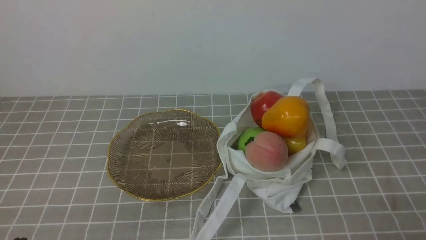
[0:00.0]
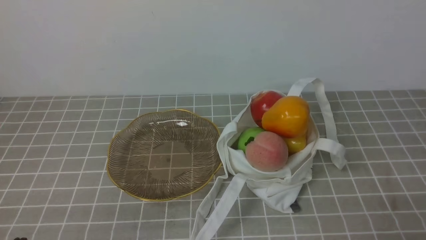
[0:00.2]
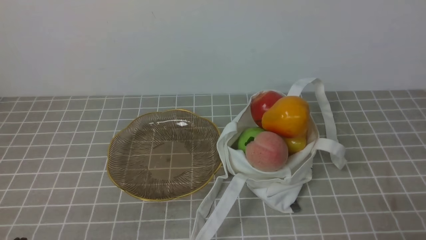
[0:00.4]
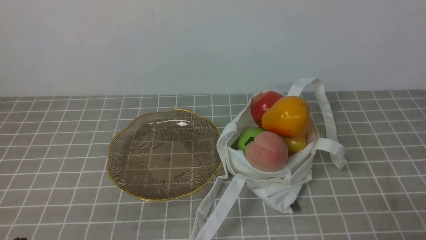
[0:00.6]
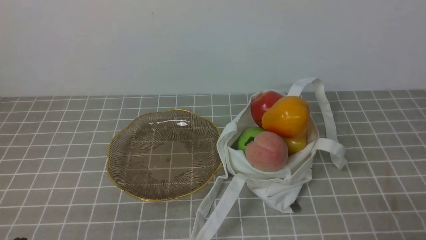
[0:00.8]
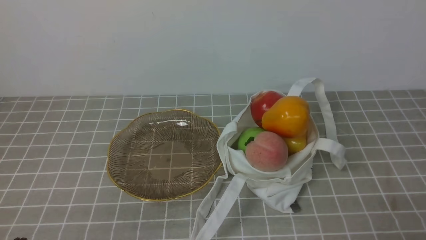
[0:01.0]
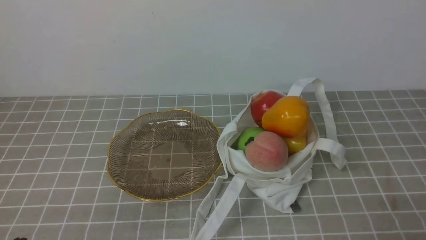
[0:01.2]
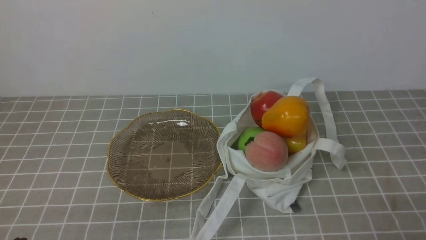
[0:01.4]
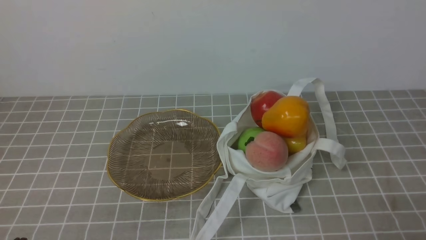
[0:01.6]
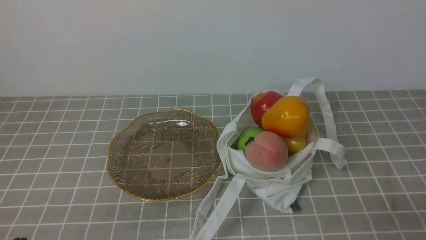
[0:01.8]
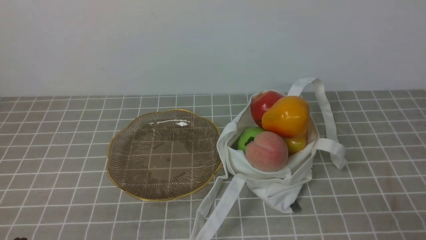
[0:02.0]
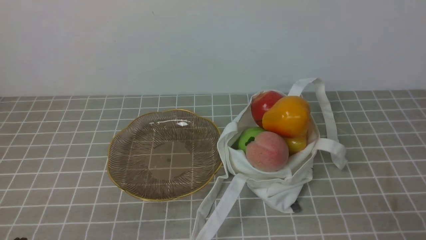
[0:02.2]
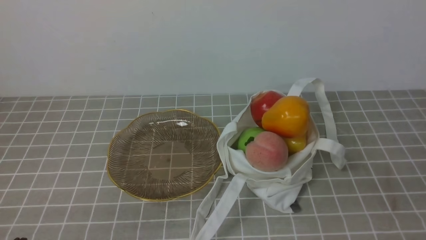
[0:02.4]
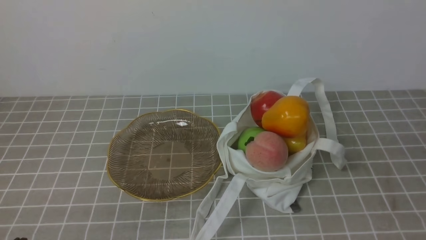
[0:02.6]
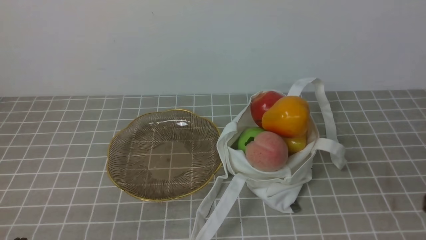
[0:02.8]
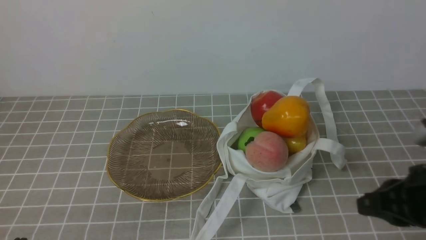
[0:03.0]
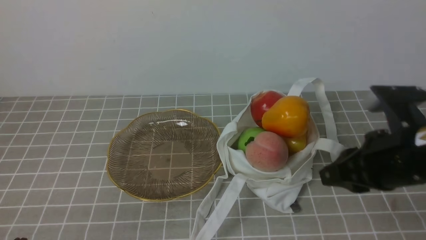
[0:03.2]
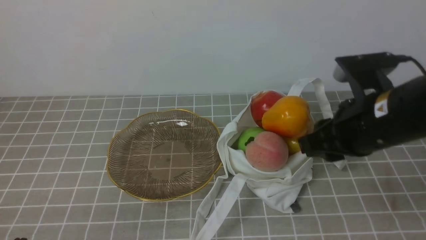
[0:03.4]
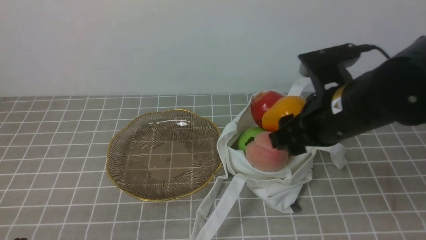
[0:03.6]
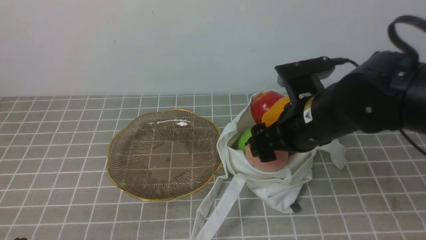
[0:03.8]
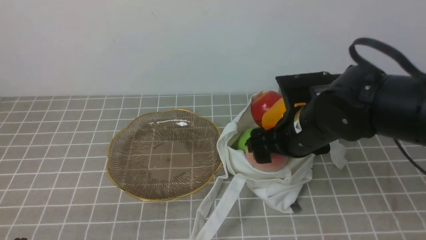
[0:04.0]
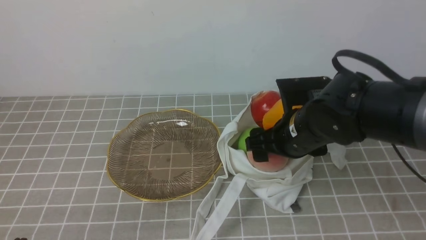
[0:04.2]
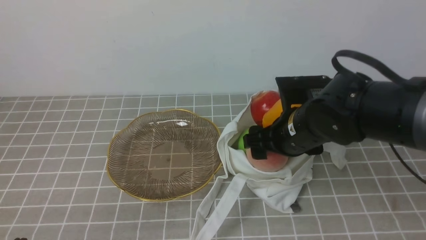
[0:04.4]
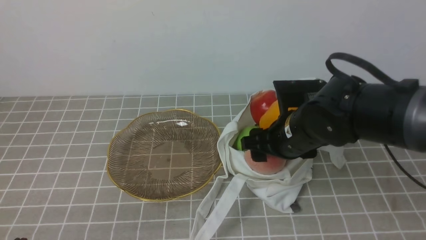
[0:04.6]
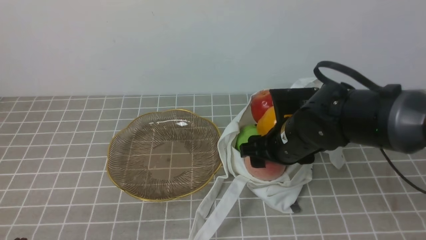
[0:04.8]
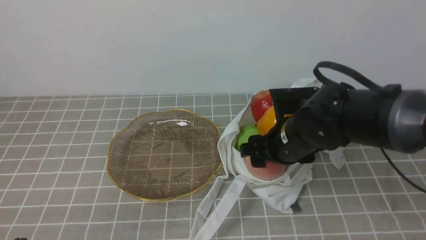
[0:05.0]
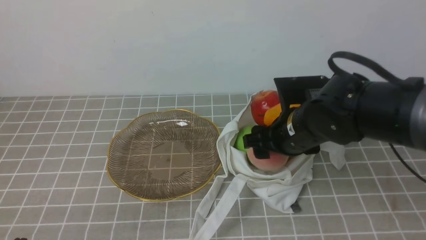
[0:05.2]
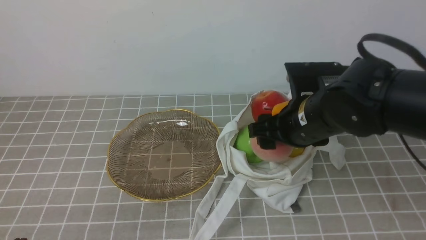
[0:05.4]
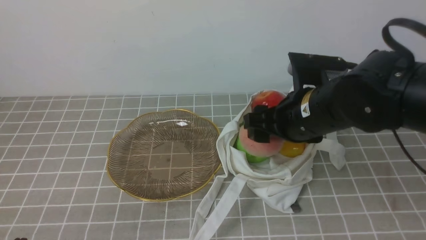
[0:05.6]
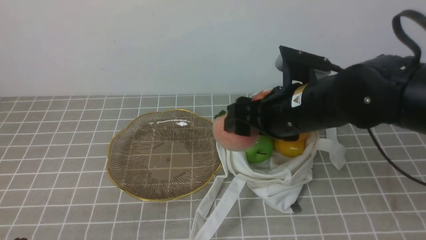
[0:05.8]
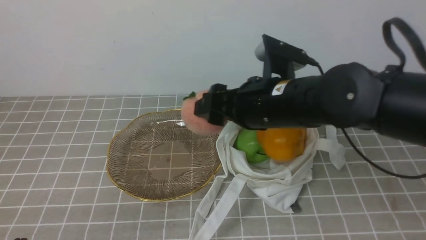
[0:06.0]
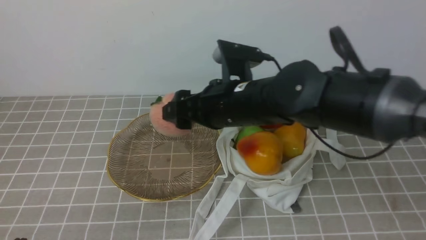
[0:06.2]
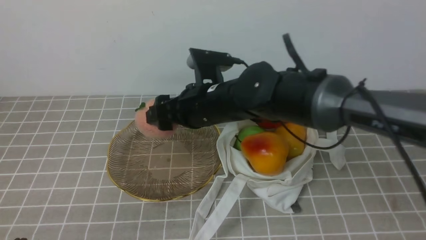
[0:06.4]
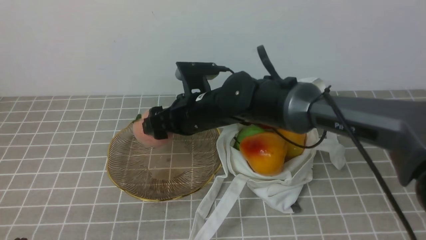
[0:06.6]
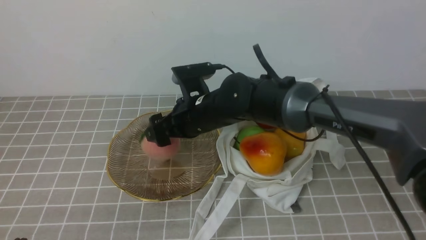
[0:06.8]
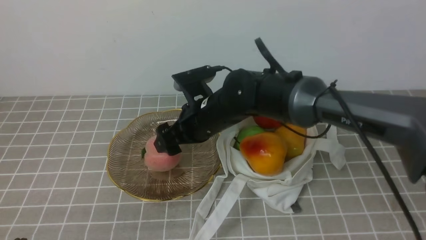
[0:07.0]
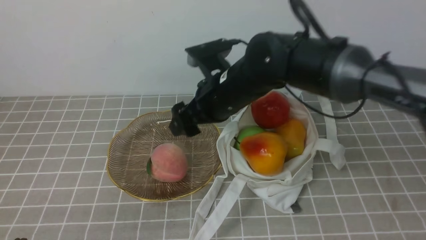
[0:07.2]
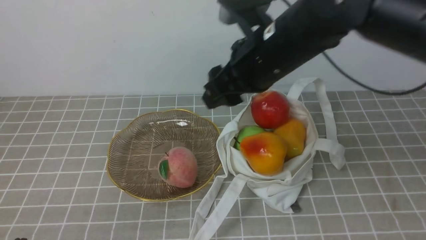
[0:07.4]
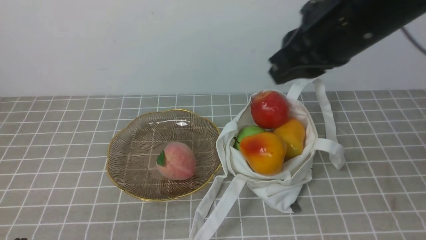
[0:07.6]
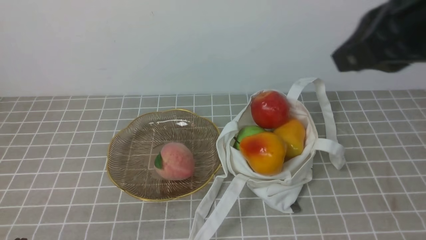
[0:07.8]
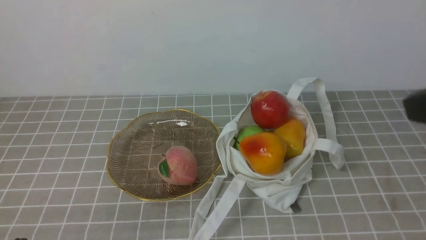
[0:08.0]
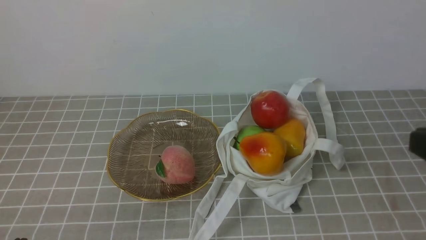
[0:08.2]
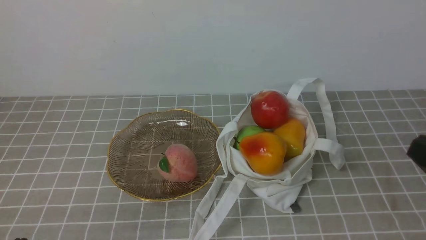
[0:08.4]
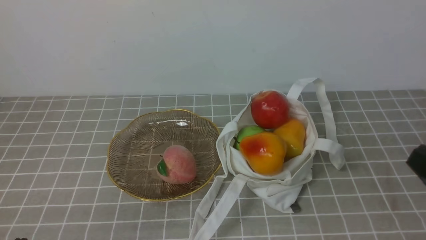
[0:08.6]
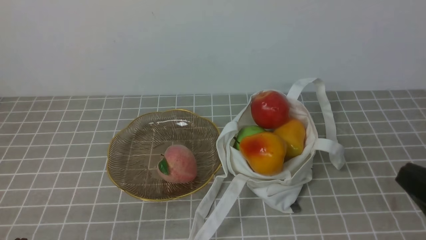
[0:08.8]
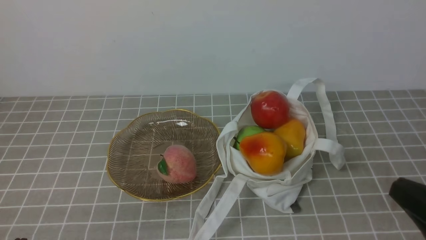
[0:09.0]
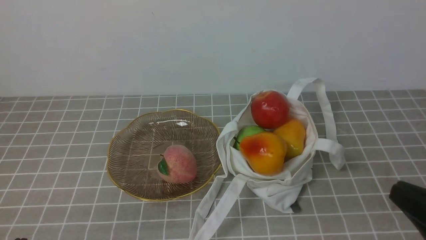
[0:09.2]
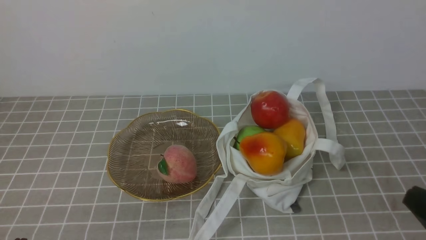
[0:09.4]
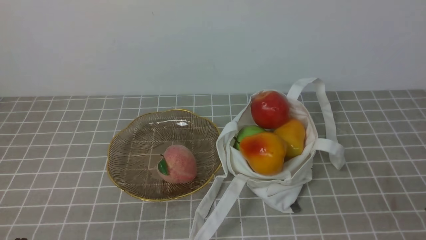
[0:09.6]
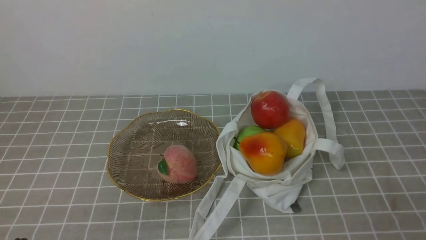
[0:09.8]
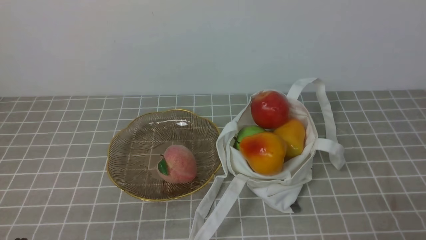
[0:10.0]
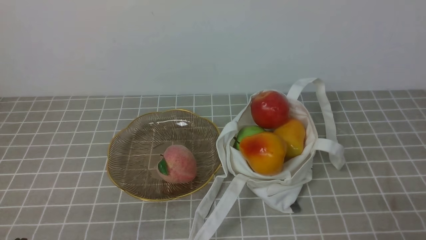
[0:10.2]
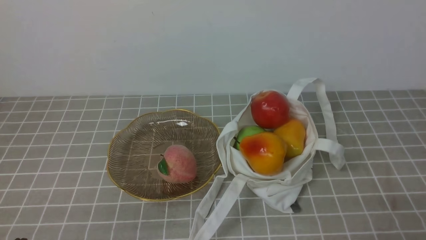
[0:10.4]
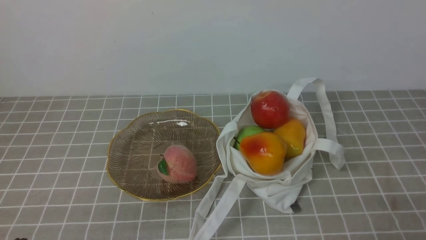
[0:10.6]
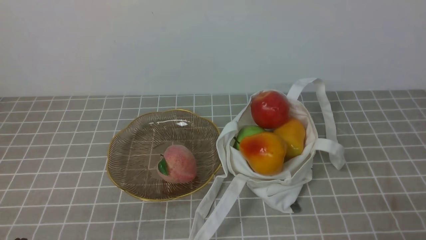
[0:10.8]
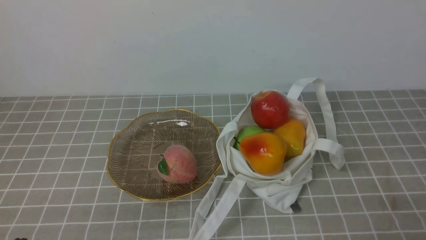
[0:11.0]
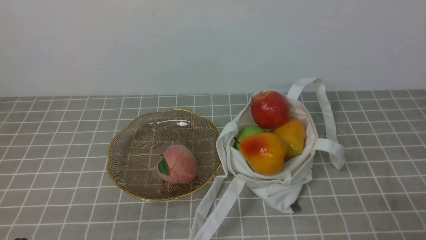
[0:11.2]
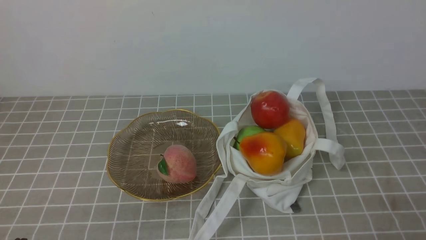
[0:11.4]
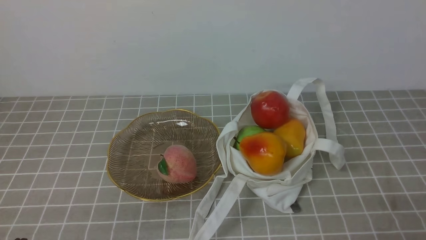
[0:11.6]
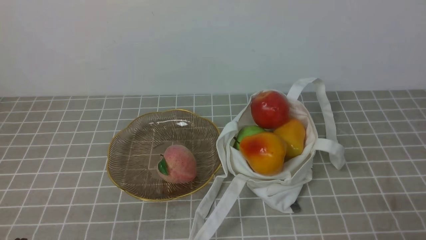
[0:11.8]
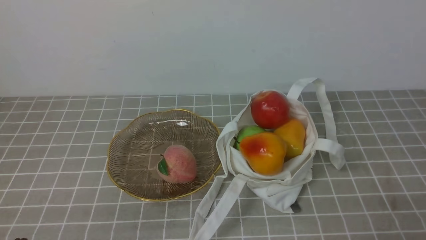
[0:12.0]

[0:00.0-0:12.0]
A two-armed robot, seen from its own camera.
Step, 0:00.0 to 0:05.2: use the right arm to grab a peach from the bag.
Step, 0:05.4 to 0:07.0: use the right arm to put the peach into the empty plate on the left.
0:01.6 to 0:03.0: The right gripper goes about 15 cm forward, upward and to the left.
0:03.0 to 0:04.4: The right gripper travels forward, to the left and downward by about 20 cm, and opens.
0:04.4 to 0:06.0: The right gripper heads to the left and upward, covering roughly 10 cm.
0:06.0 to 0:07.6: The right gripper shifts roughly 15 cm upward and to the right, and closes.
0:07.6 to 0:09.0: The right gripper goes approximately 25 cm backward, downward and to the right.
0:09.0 to 0:10.4: The right gripper heads downward, covering approximately 10 cm.
0:10.4 to 0:12.0: Both grippers stay about where they are.

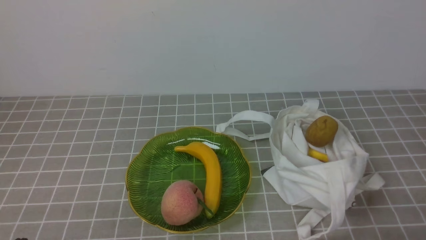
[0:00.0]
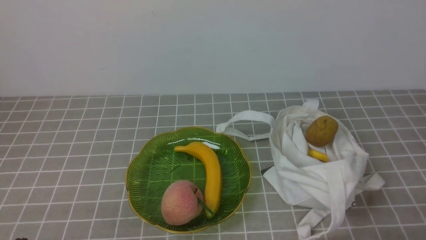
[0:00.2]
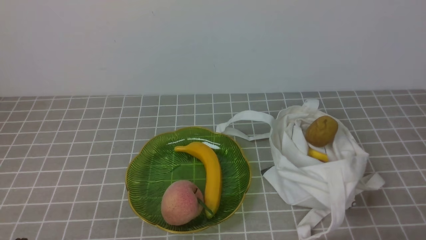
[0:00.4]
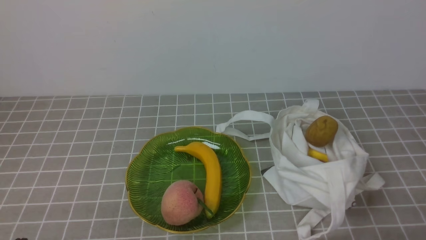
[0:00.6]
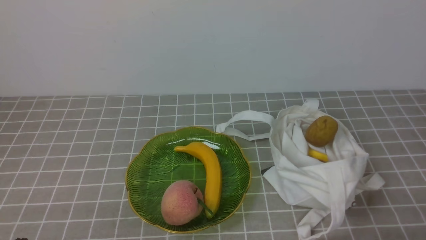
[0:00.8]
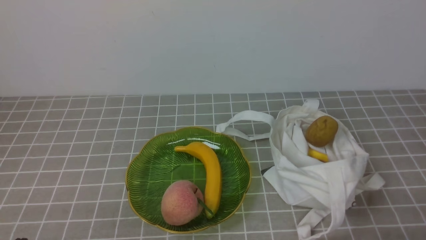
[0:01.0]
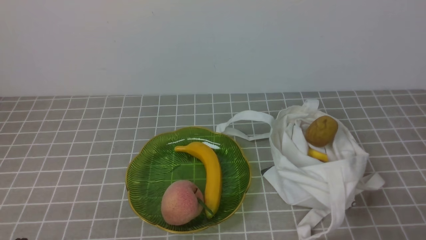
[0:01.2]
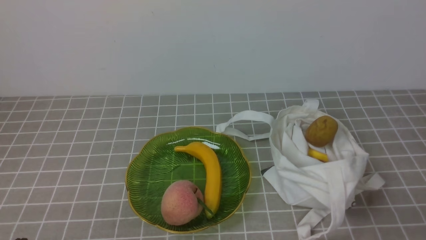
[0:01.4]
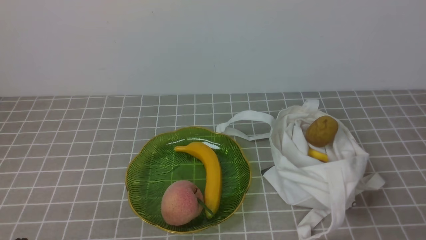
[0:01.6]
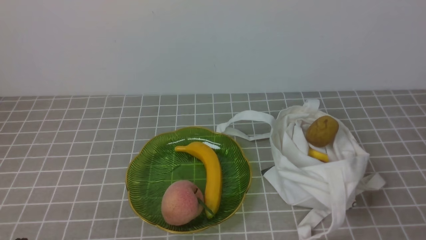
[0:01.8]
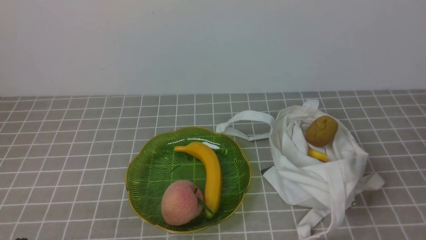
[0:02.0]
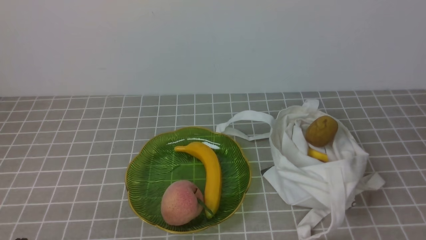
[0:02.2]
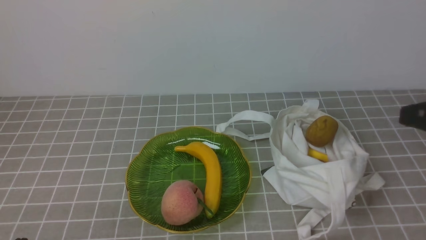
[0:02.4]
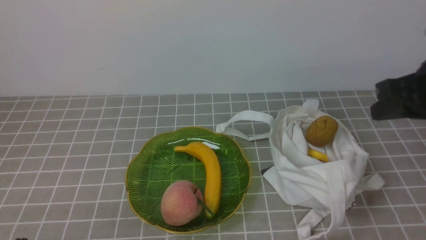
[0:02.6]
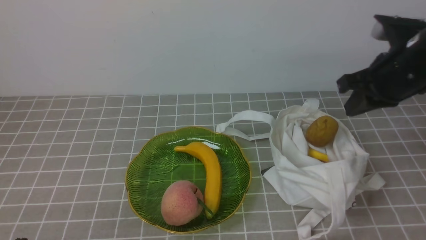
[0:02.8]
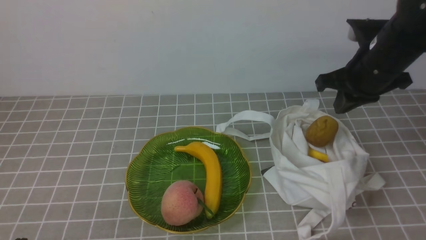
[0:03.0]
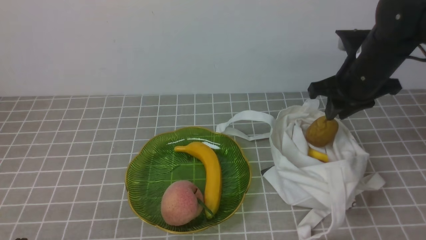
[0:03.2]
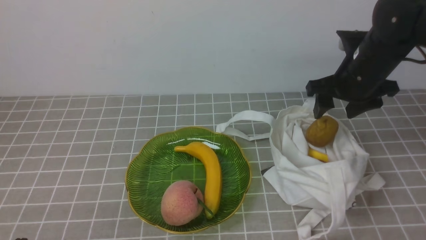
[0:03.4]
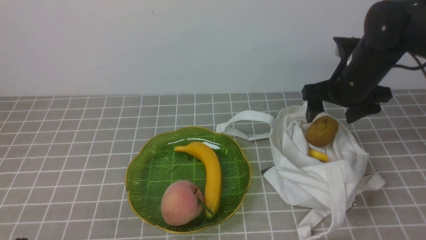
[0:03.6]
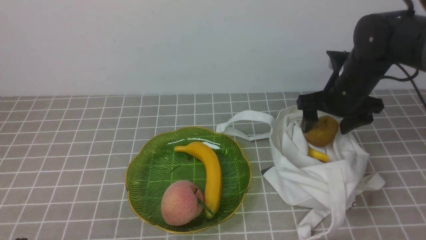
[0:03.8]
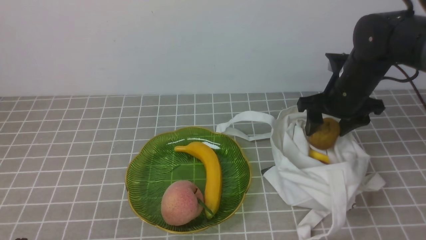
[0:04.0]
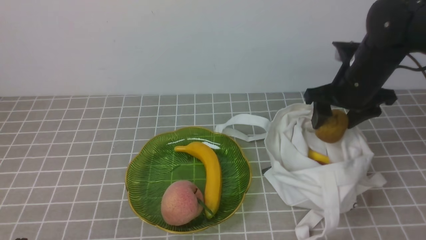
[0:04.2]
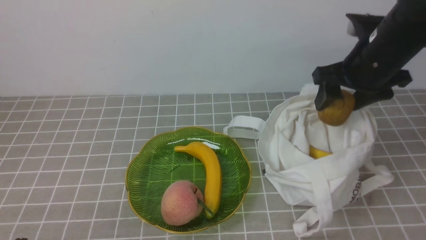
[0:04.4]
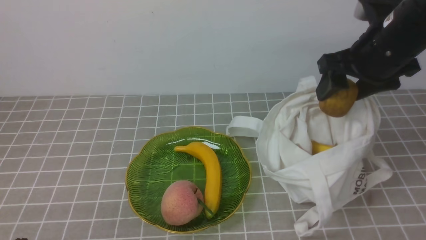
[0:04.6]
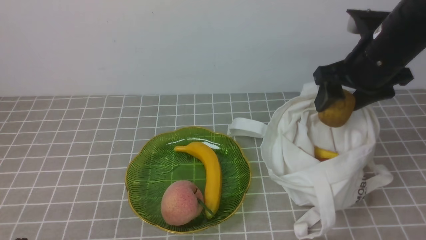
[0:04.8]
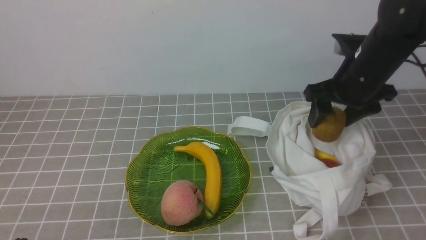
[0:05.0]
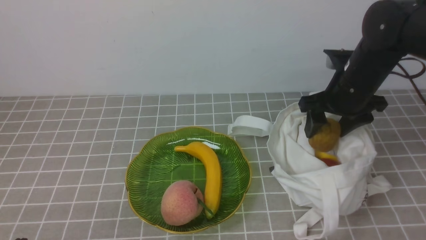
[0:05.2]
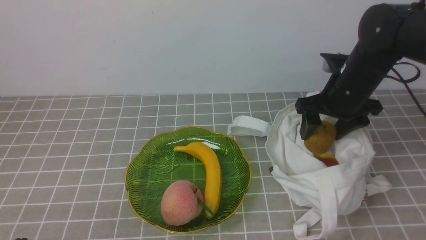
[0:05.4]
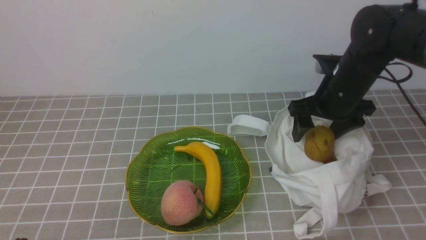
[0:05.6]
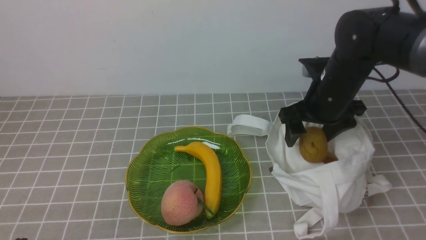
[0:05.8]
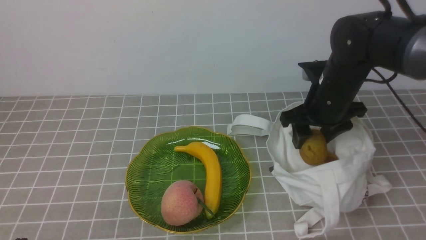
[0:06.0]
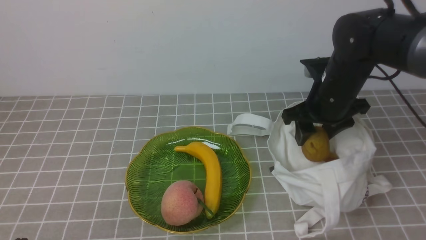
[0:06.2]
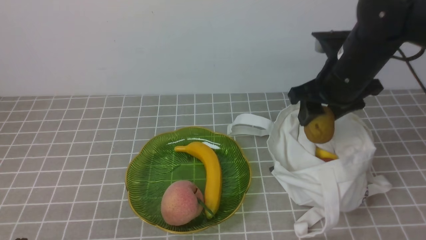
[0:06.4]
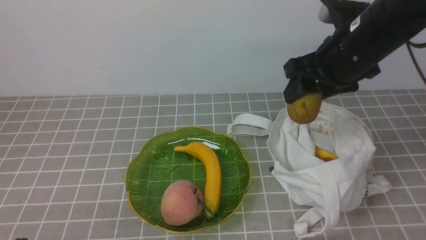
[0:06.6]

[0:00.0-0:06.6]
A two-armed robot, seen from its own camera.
Step, 0:00.0 to 0:06.2: use the right arm to grab a kiwi from the bag.
0:01.6 to 0:03.2: The right gripper is displaced forward by roughly 30 cm, and opens.
0:03.2 to 0:05.0: The right gripper goes up and down, approximately 10 cm each way, reversing 2 times, and opens up.
0:05.0 to 0:06.6: The right gripper shifts some 5 cm to the left.
